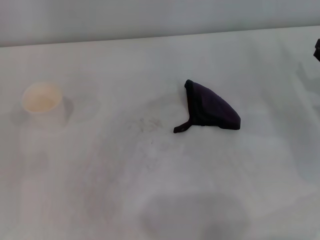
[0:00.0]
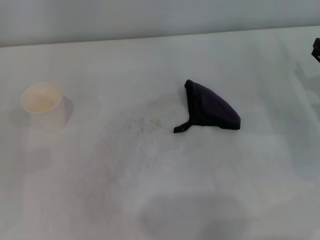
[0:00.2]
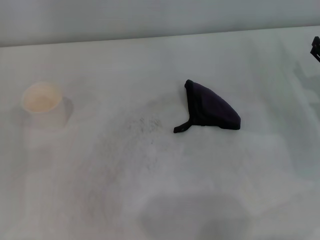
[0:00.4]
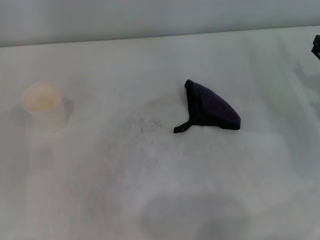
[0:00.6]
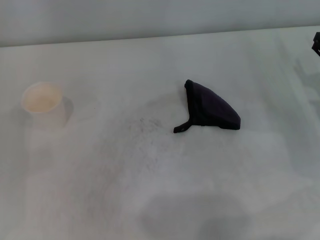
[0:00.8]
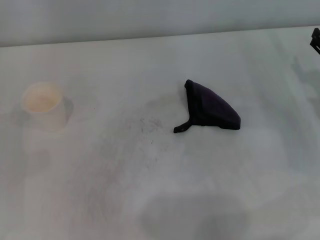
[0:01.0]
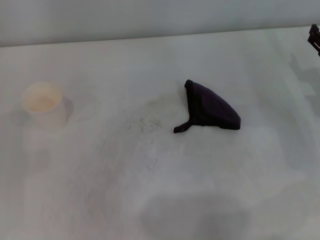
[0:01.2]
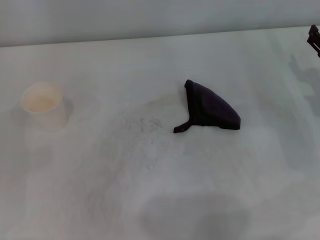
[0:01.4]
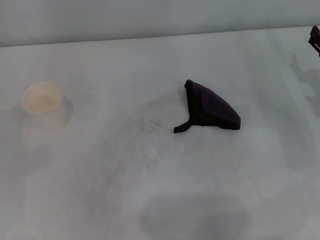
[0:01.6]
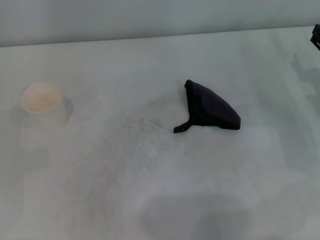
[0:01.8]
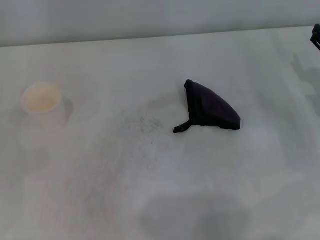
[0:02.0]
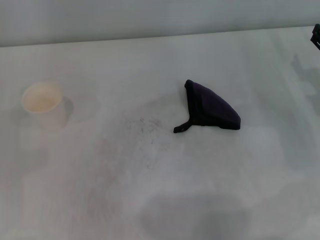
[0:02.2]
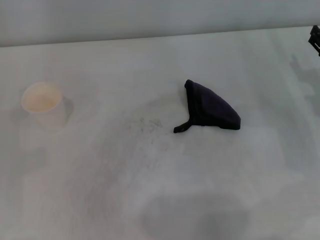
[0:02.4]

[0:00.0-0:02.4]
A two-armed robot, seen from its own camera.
0:01.2 to 0:02.4: Neither gripper changes place.

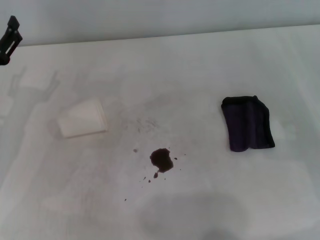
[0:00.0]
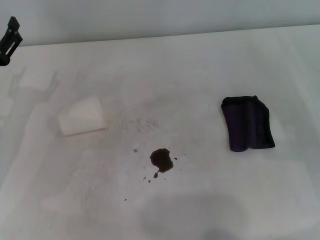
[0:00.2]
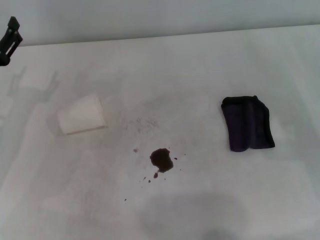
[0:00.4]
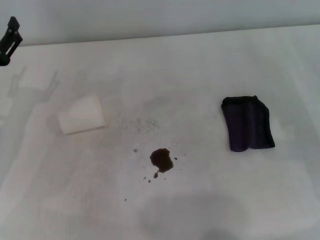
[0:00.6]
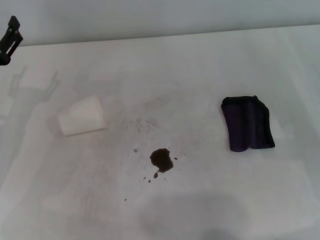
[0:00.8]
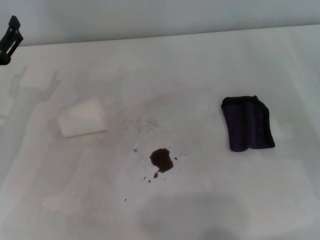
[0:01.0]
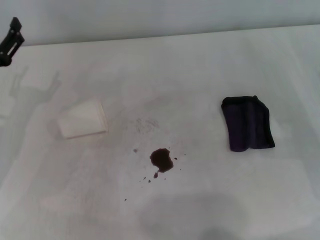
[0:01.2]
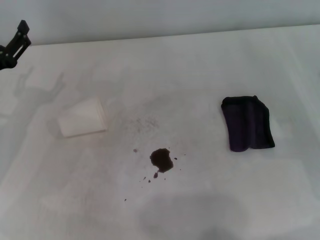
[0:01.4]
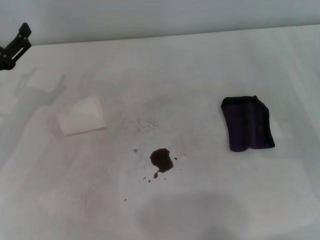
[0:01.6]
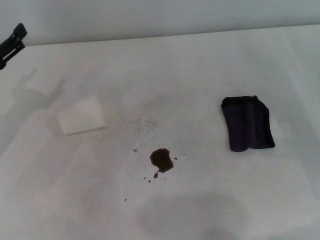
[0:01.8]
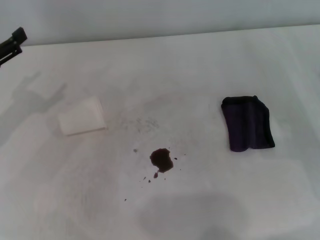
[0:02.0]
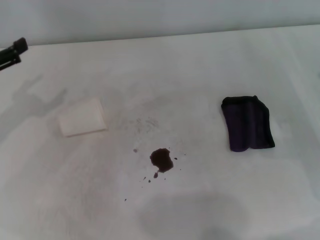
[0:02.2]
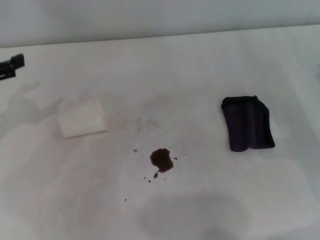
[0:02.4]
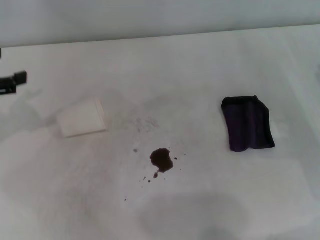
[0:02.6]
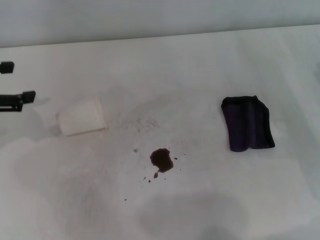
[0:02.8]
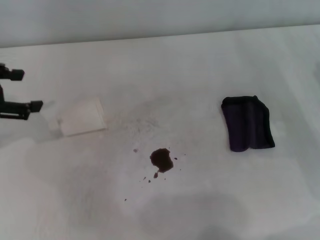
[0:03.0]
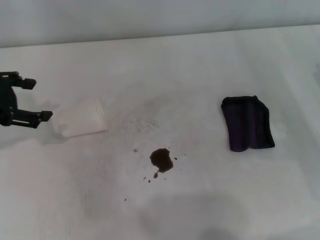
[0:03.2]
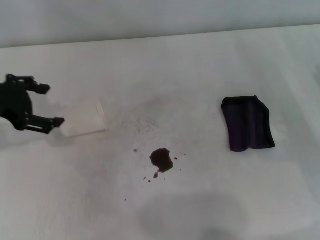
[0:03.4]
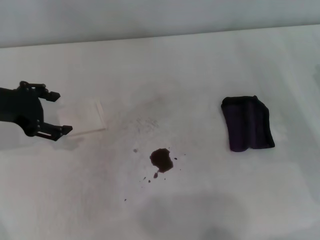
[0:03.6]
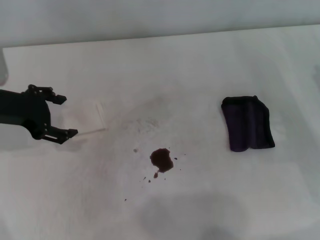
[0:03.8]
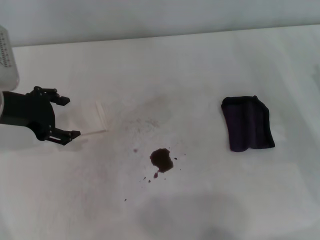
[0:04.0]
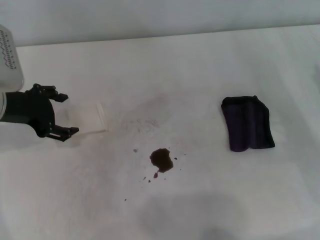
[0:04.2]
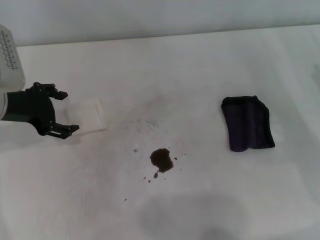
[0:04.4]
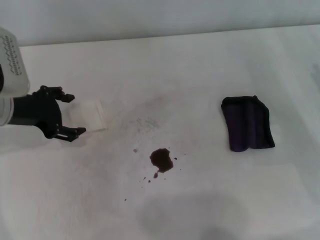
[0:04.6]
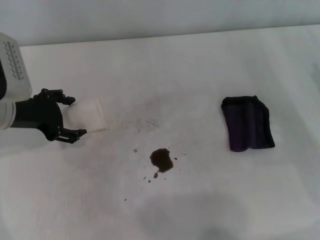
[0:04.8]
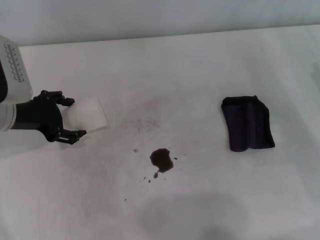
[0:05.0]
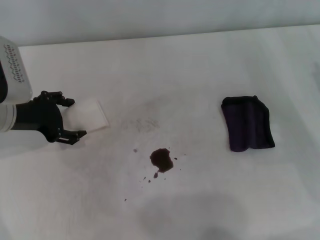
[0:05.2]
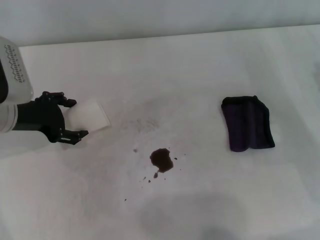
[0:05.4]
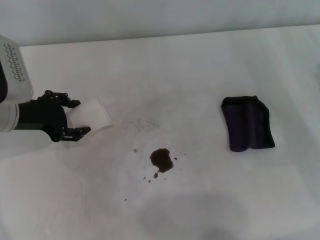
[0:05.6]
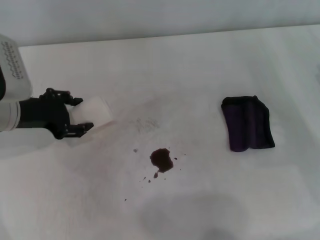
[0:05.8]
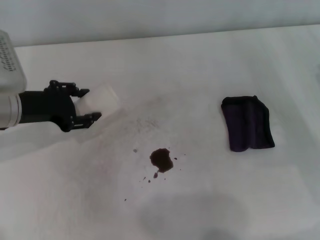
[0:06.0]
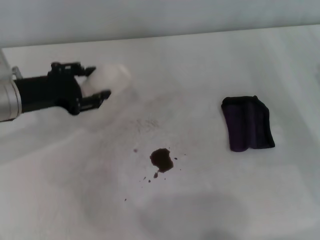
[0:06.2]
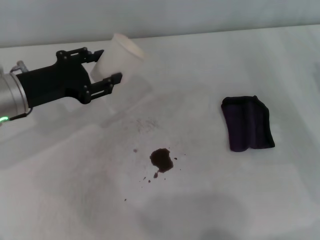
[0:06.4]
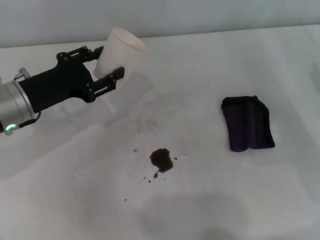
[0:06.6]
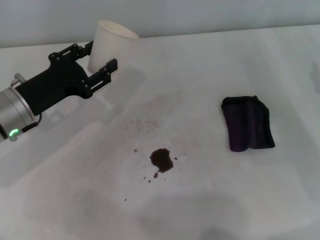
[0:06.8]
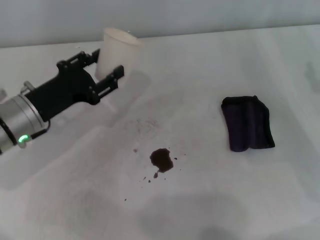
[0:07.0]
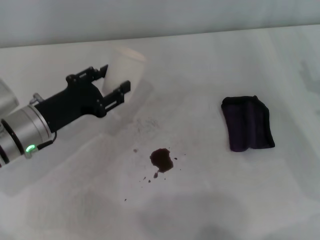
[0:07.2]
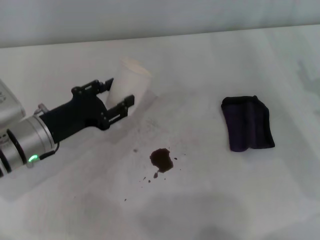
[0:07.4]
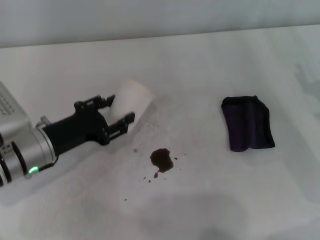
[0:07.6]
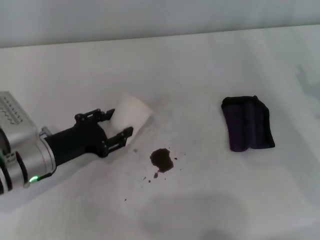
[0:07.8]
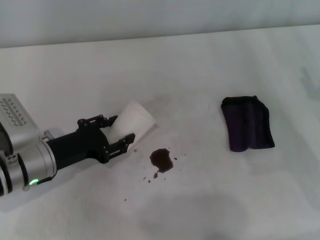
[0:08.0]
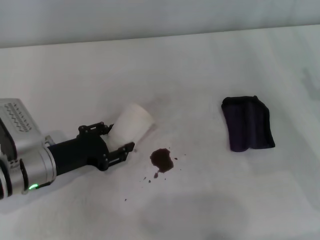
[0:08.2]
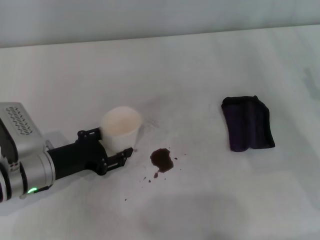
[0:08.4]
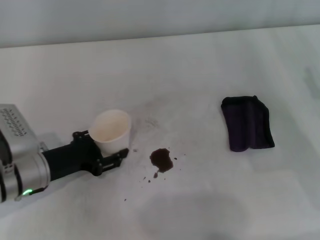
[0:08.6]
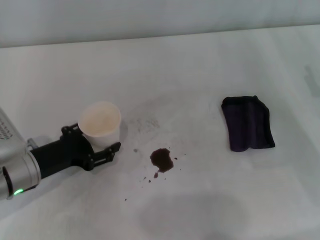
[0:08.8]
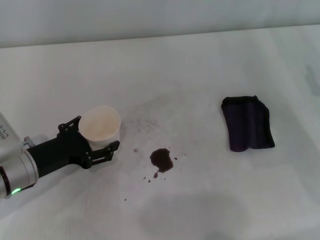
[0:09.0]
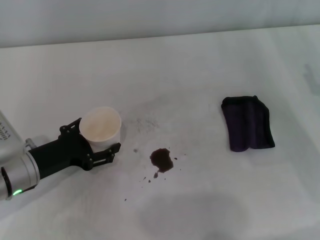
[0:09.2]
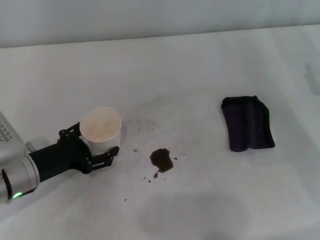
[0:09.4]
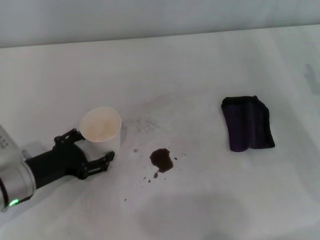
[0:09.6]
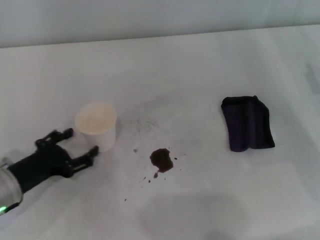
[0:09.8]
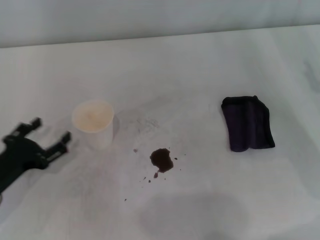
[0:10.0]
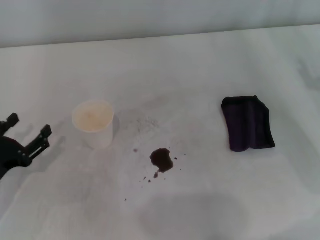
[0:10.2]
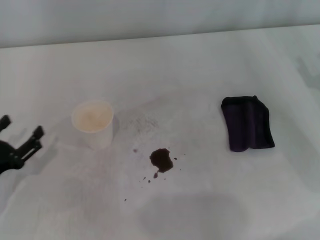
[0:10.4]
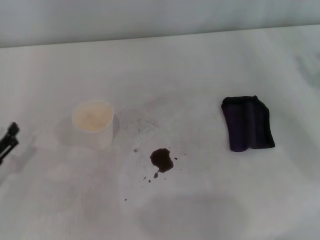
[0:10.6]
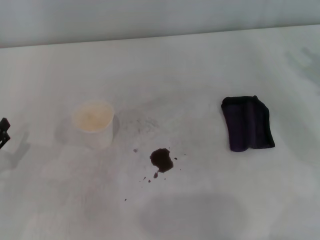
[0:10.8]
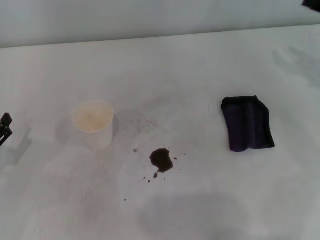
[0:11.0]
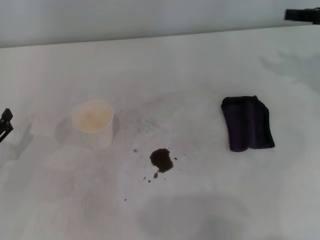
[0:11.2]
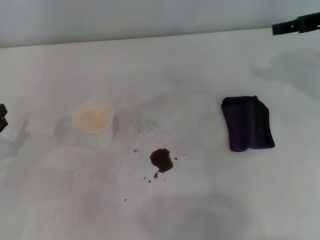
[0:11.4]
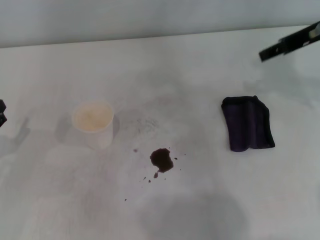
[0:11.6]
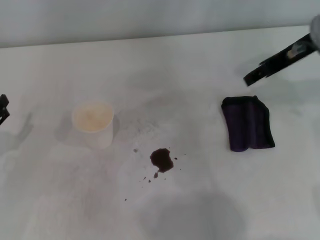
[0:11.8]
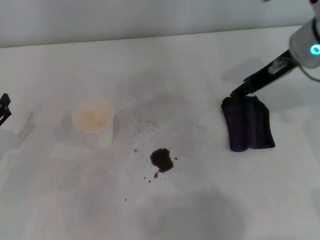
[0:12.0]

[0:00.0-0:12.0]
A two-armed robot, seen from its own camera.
Step, 0:00.0 to 0:05.6: Grasp the paper cup with the left gripper.
Step, 0:05.8 to 0:09.4: Stand the paper cup upright with the left gripper.
0:00.0 to 0:01.6: The grippers make only small movements.
0:01.6 to 0:03.0: The left gripper goes some 10 cm upward.
0:03.0 to 0:04.4: The left gripper shifts about 10 cm to the right and downward.
0:04.4 to 0:06.0: The left gripper closes its fingers.
0:06.0 to 0:07.6: The left gripper is displaced downward and backward by about 10 cm.
0:07.6 to 0:09.0: The left gripper opens its fingers.
0:09.0 to 0:10.4: The left gripper moves to the left and backward, roughly 10 cm, and opens.
0:10.4 to 0:12.0: The right gripper travels to the left, upward and forward by approximately 20 cm.

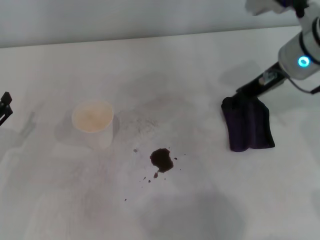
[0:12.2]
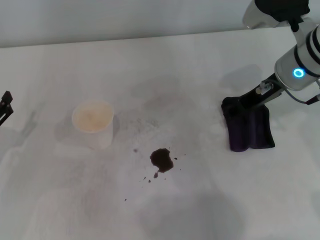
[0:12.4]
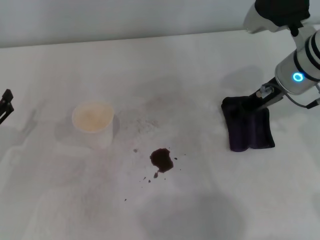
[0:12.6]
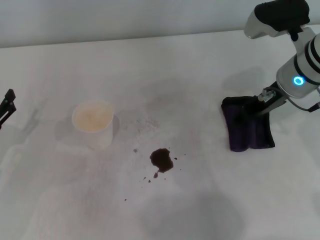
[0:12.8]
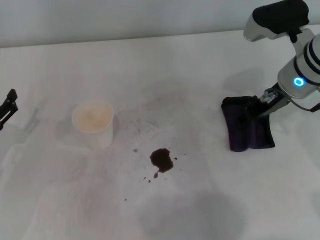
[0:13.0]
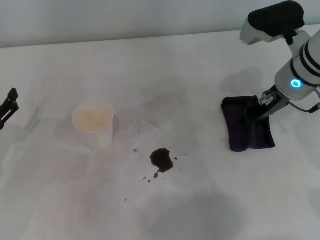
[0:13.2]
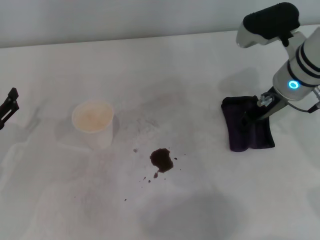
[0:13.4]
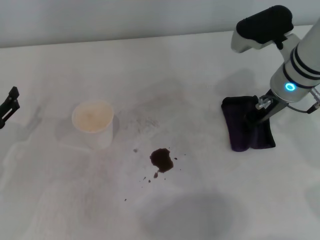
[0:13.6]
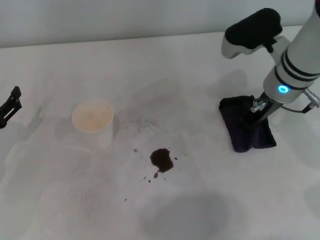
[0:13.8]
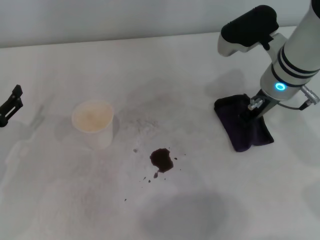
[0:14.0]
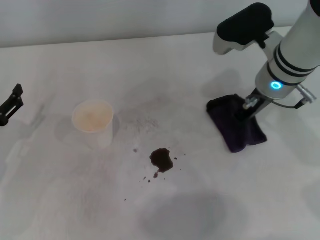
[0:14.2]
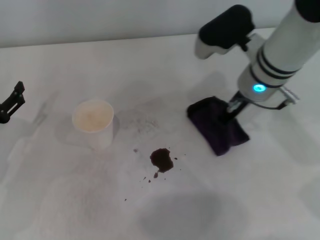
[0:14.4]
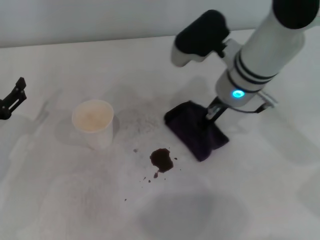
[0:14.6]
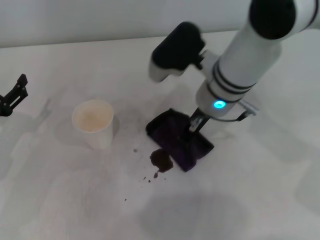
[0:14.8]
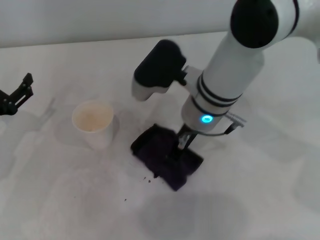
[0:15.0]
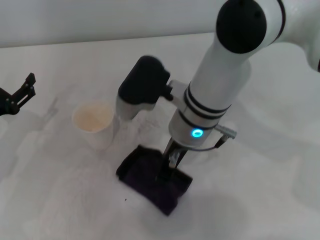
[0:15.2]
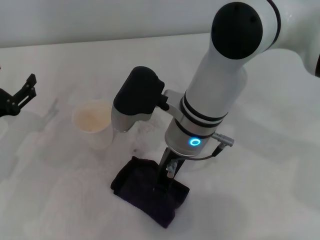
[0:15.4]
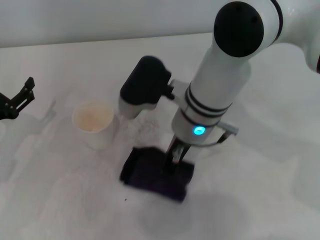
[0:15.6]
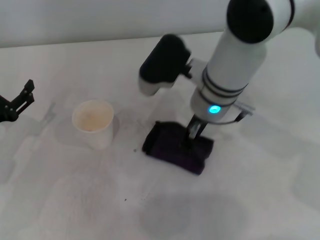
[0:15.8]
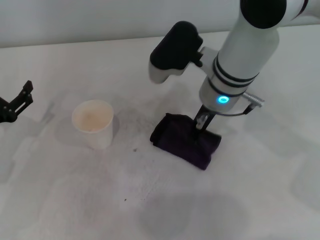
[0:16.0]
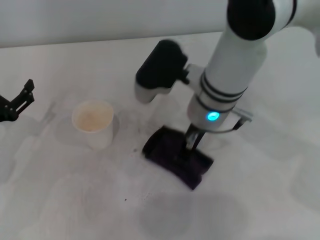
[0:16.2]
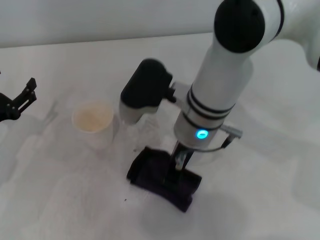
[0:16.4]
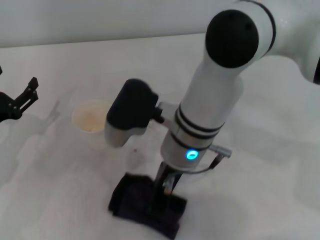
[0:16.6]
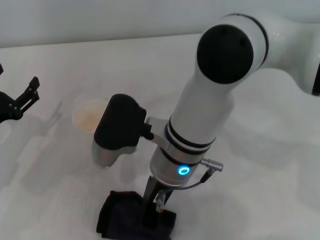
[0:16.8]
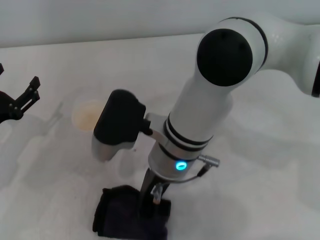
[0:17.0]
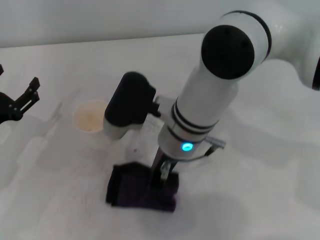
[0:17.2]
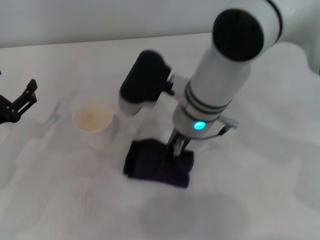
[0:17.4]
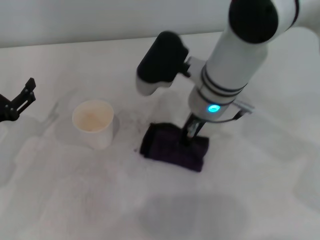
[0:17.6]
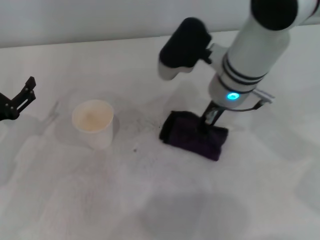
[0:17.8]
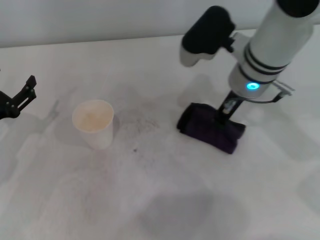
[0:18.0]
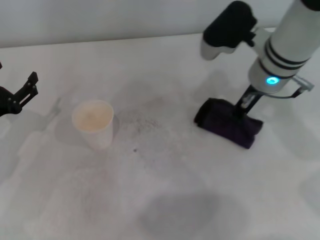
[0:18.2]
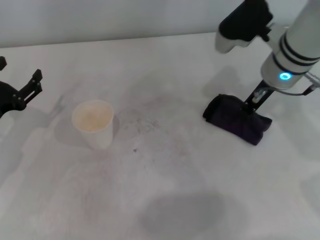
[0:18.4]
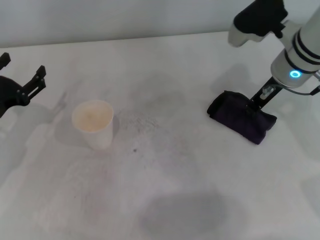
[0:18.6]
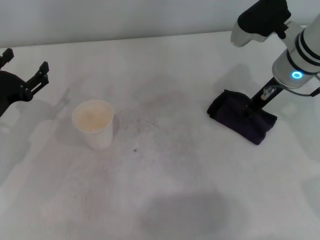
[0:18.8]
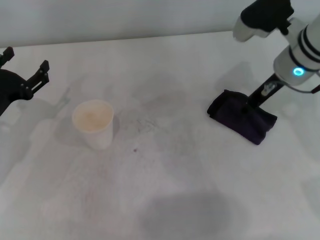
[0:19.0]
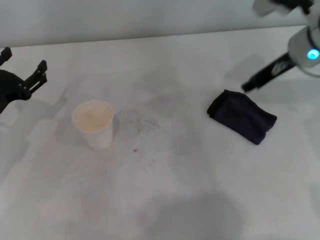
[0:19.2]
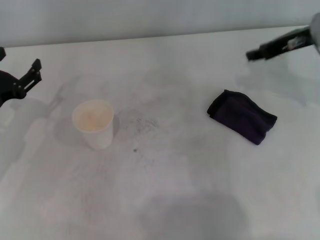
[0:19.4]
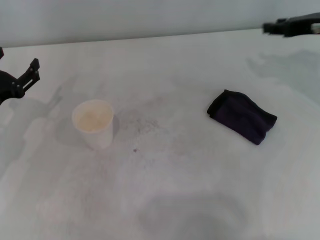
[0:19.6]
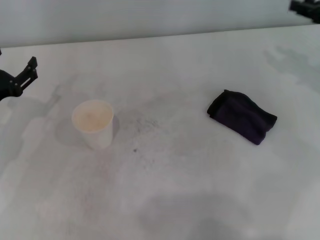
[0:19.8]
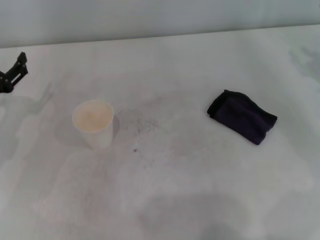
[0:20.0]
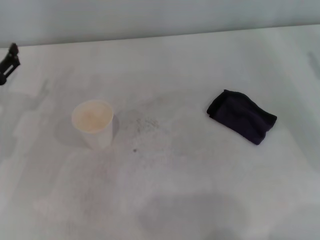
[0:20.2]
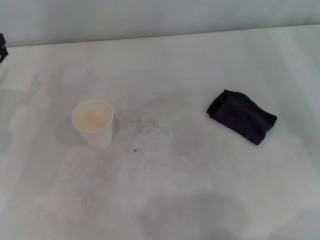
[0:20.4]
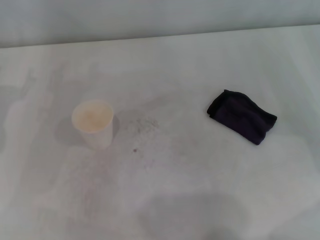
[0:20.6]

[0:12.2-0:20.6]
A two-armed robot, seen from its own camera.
Step, 0:13.8 to 0:18.0: Wipe the stains off the table with the right gripper.
Step, 0:18.2 to 0:18.8: Place the rag on the table with the right gripper.
0:12.2 to 0:13.6: The right gripper closes its fingers.
0:13.6 to 0:15.0: The right gripper heads to the left, covering approximately 15 cm, and closes its fingers.
0:15.0 to 0:16.4: The grippers move only a little.
0:16.4 to 0:17.8: The right gripper is displaced to the right by approximately 5 cm.
0:17.8 to 0:19.2: The right gripper travels to the right by roughly 15 cm, and opens up.
0:19.2 to 0:20.6: The right gripper is displaced to the right, backward and downward by some 20 cm.
